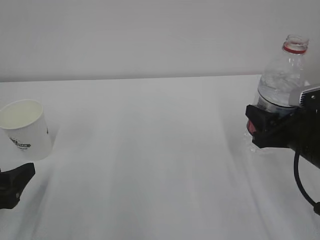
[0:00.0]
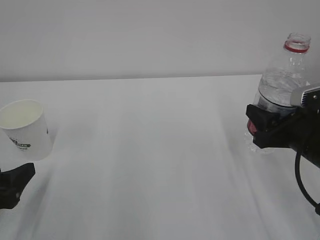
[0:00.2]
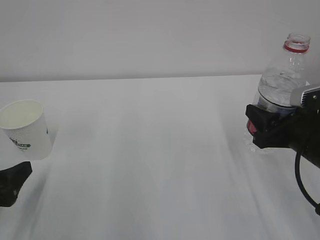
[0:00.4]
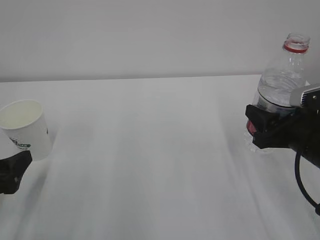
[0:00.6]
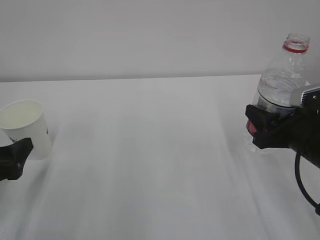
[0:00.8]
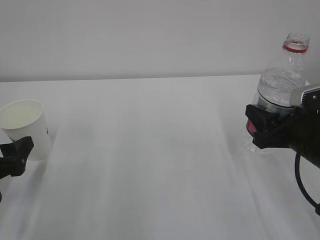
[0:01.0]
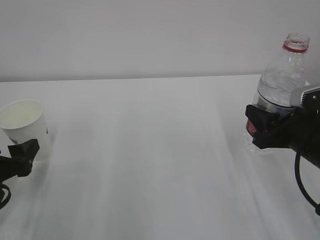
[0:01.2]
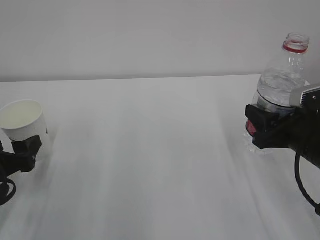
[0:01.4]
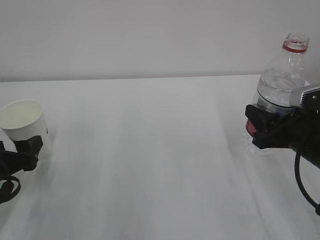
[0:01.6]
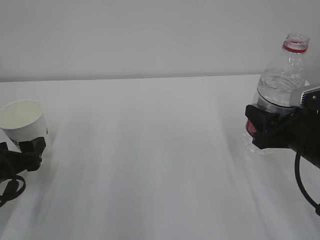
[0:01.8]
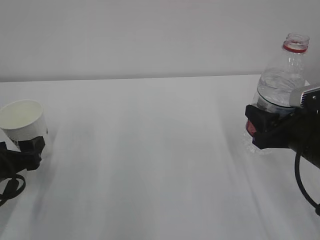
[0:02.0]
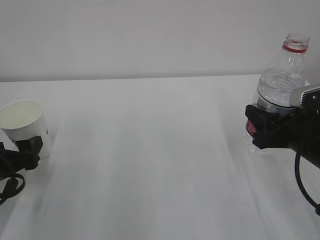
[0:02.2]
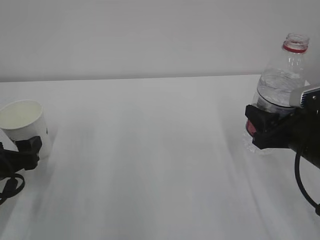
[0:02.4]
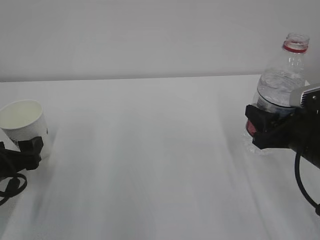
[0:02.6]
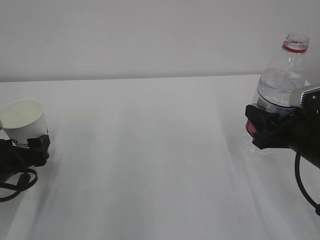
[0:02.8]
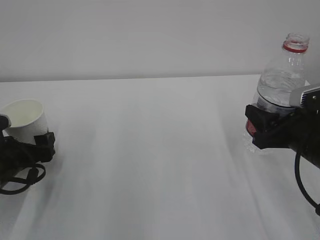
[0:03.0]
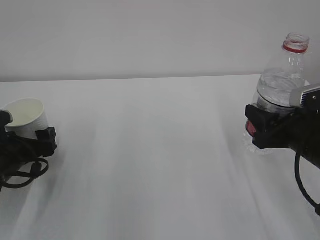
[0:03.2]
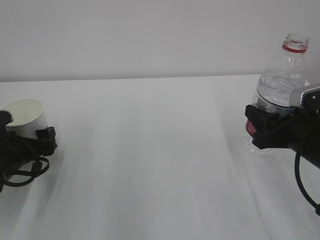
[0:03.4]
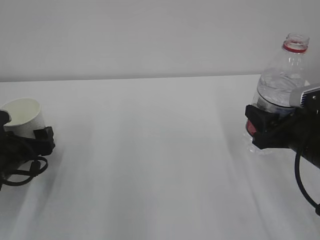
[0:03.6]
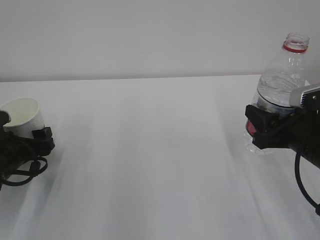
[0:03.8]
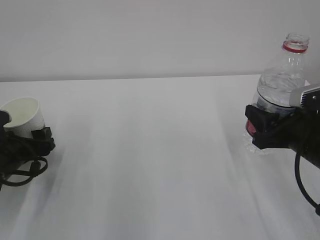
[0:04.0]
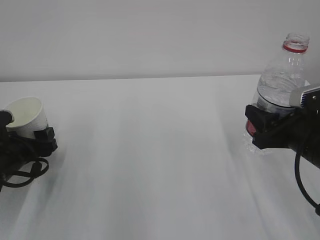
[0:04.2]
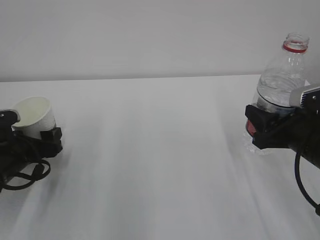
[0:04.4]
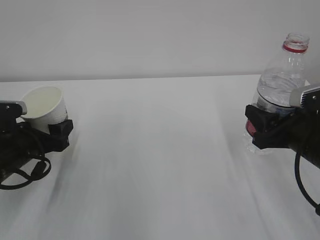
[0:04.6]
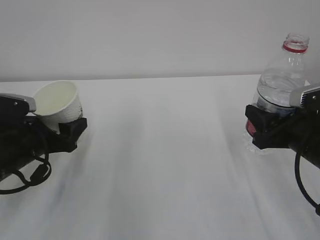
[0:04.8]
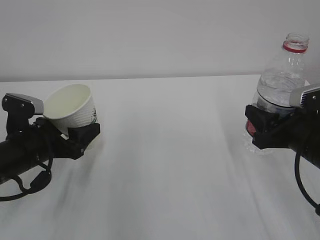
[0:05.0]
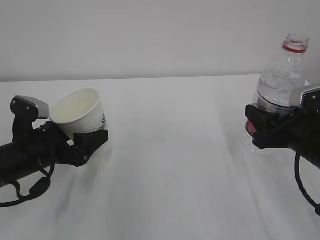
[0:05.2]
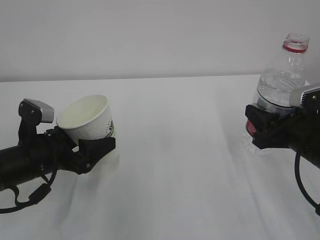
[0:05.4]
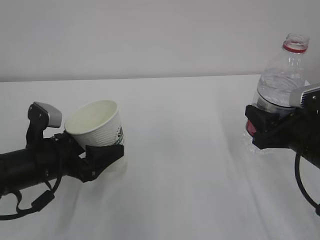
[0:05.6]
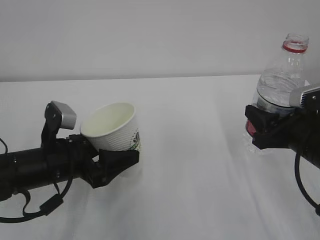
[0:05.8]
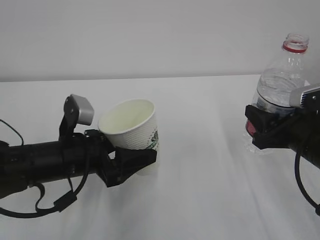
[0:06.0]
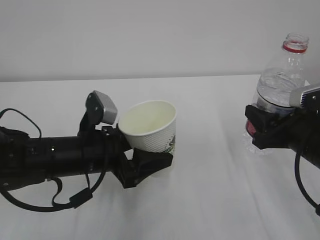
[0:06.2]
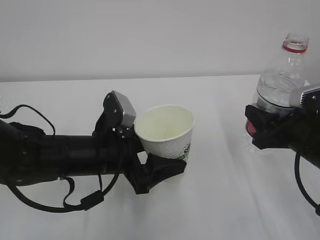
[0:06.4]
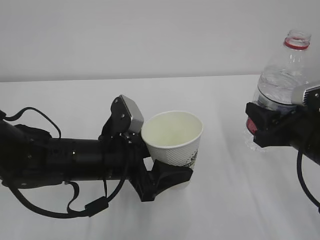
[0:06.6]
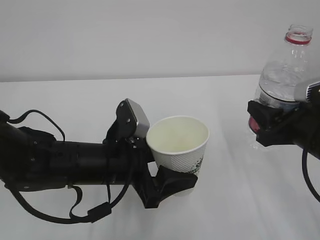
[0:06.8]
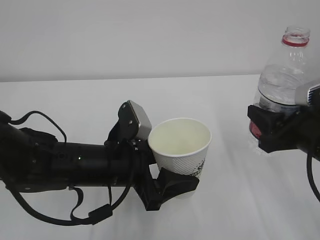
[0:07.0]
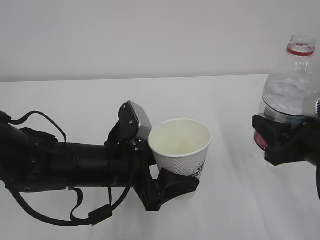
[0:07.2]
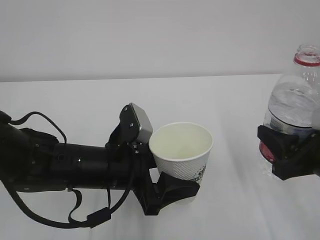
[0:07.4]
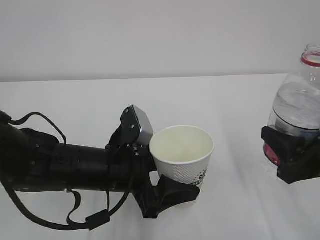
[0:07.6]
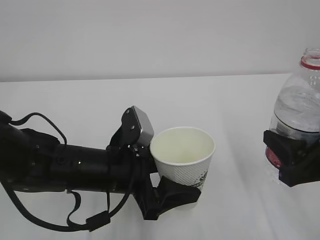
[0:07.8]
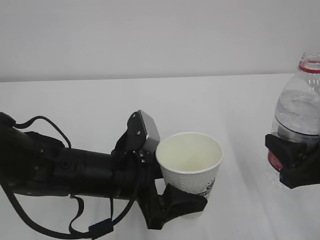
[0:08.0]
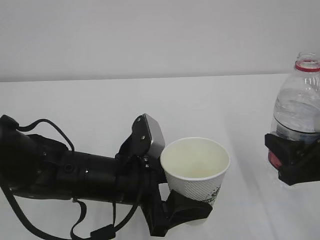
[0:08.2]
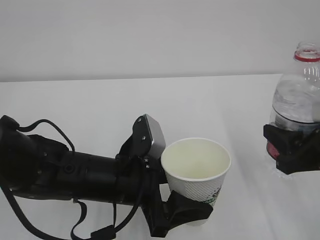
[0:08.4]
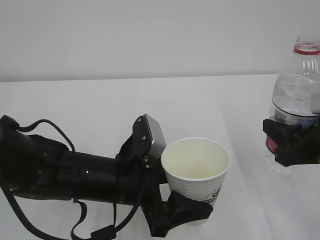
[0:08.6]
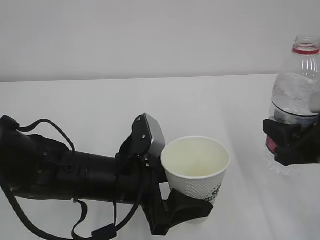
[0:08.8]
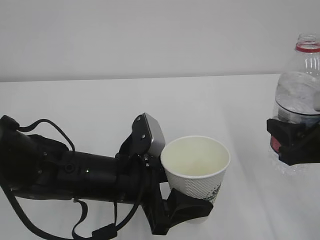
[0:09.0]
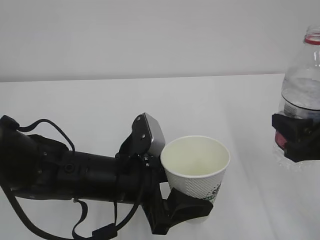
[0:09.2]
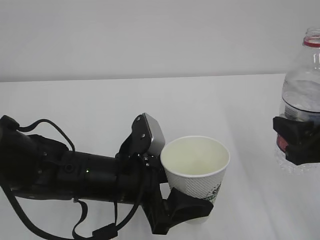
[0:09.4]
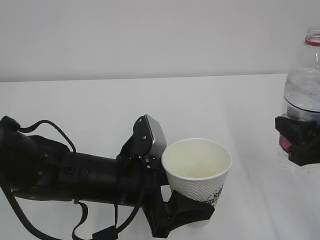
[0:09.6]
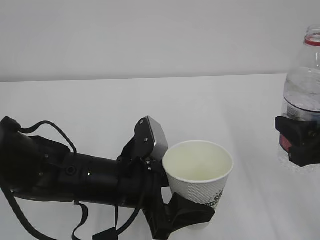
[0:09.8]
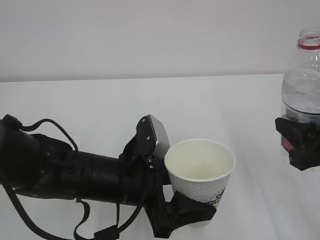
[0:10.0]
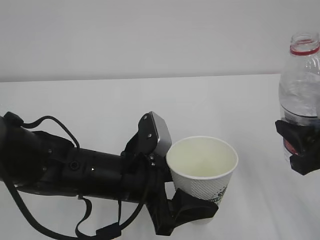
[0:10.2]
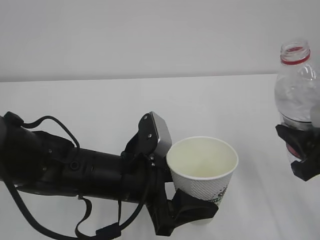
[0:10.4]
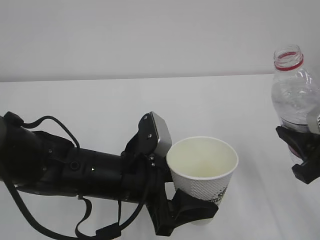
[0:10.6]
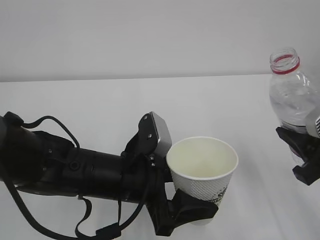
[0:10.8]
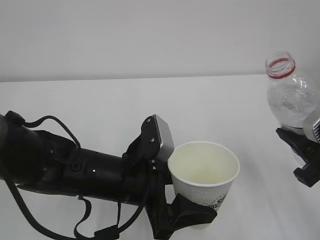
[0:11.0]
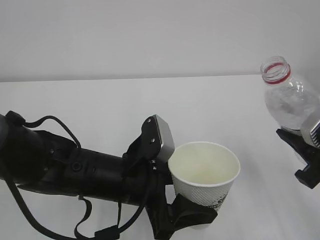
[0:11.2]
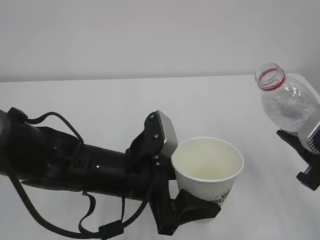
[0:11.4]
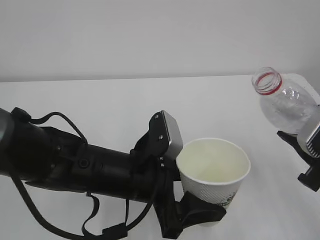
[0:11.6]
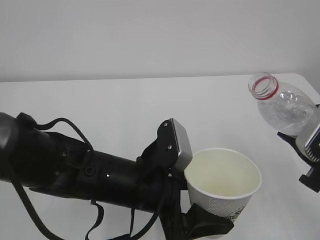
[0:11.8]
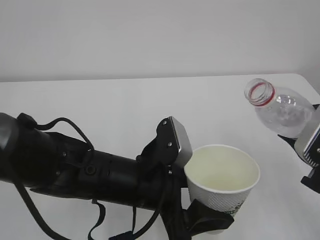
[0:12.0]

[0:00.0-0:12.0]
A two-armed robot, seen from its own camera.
0:00.0 to 0:01.6: The left gripper heads forward, covering some 5 cm, and opens.
0:01.6 to 0:03.0: The left gripper changes place by roughly 5 cm.
0:03.0 to 0:04.4: The left gripper closes up.
0:04.4 to 0:06.0: The left gripper is displaced to the right by approximately 10 cm.
0:06.0 to 0:07.6: The right gripper is displaced backward by about 5 cm. Meanwhile the left gripper moves to the right, approximately 5 cm.
0:07.6 to 0:10.4: The grippers move only a little.

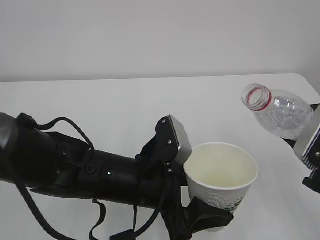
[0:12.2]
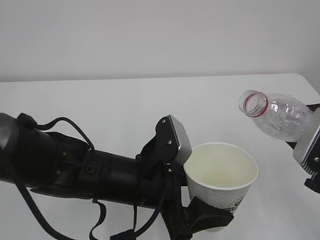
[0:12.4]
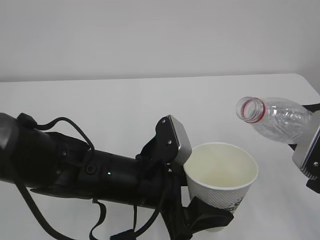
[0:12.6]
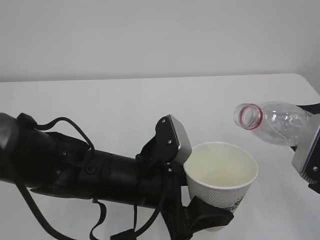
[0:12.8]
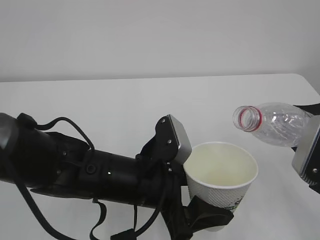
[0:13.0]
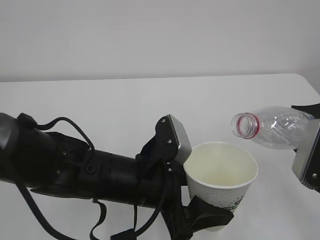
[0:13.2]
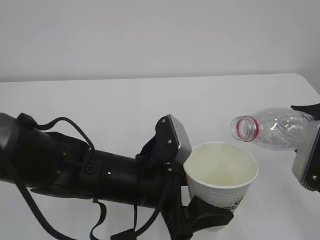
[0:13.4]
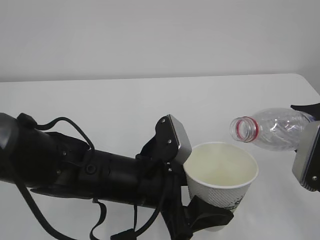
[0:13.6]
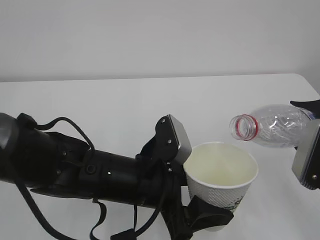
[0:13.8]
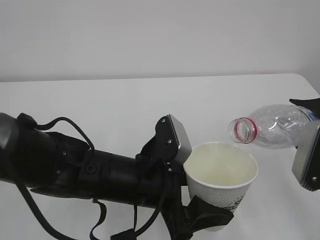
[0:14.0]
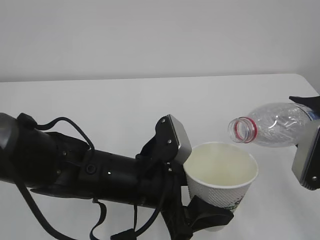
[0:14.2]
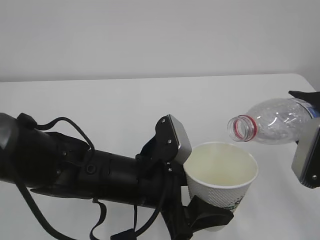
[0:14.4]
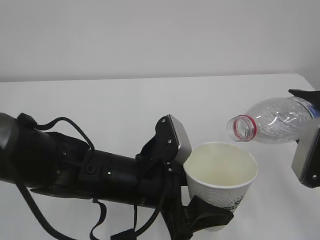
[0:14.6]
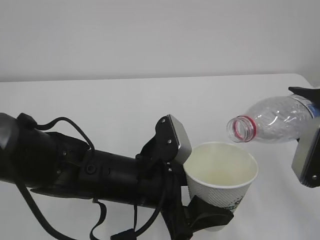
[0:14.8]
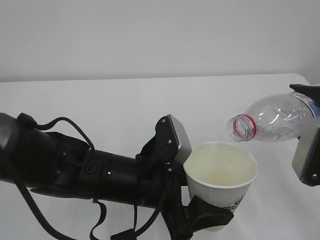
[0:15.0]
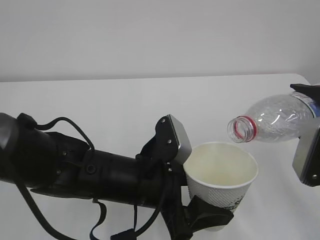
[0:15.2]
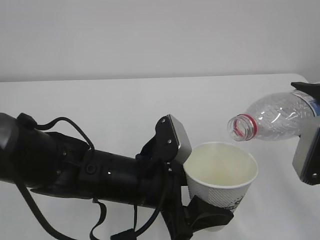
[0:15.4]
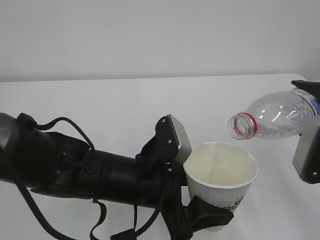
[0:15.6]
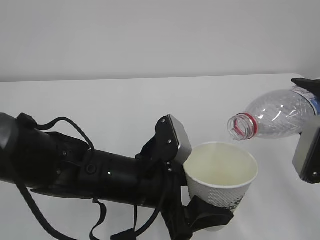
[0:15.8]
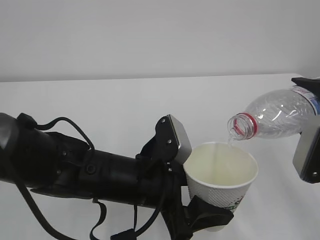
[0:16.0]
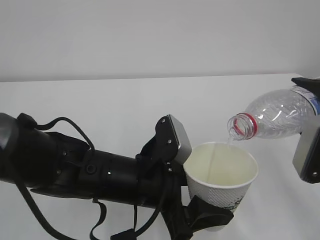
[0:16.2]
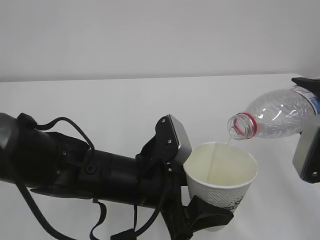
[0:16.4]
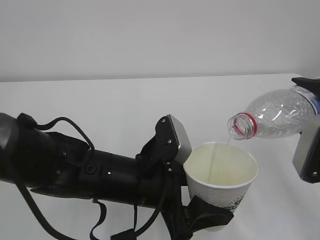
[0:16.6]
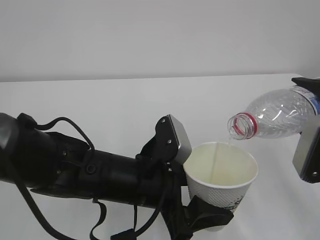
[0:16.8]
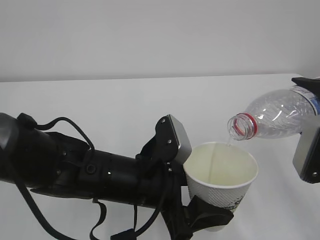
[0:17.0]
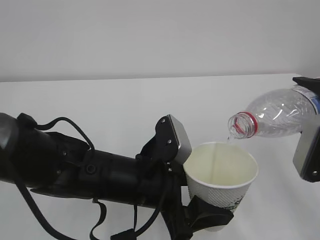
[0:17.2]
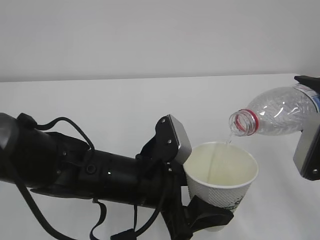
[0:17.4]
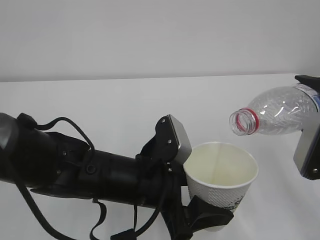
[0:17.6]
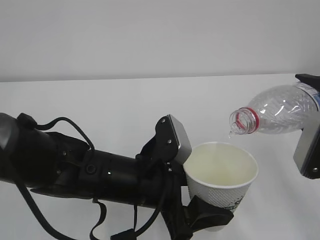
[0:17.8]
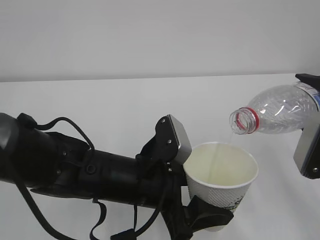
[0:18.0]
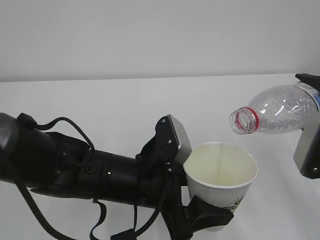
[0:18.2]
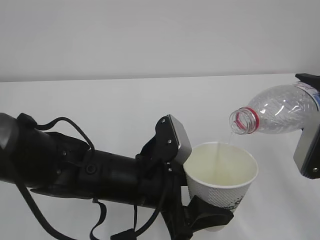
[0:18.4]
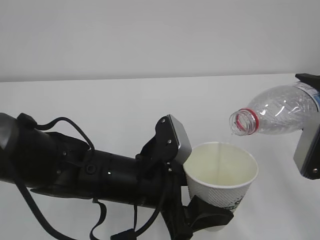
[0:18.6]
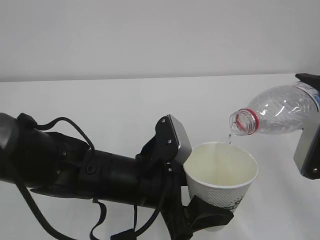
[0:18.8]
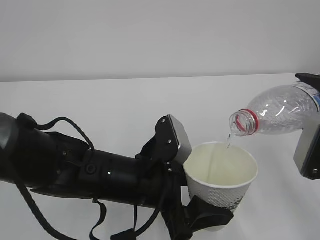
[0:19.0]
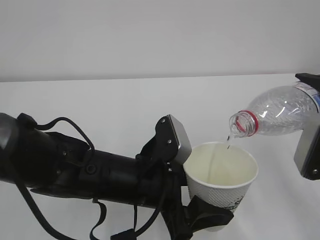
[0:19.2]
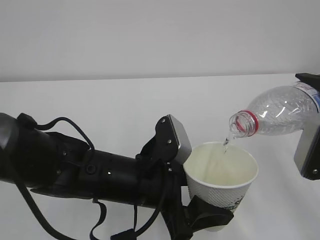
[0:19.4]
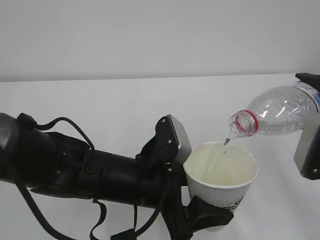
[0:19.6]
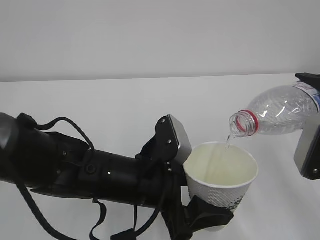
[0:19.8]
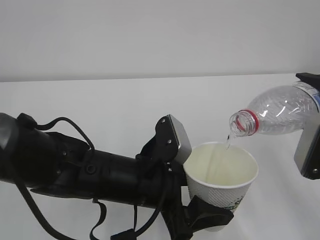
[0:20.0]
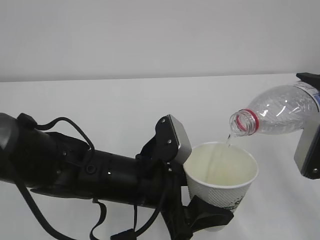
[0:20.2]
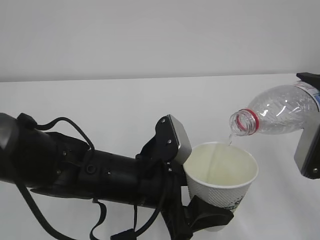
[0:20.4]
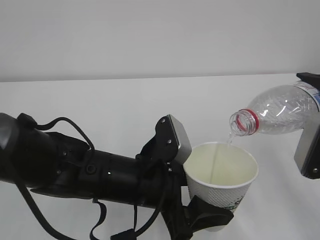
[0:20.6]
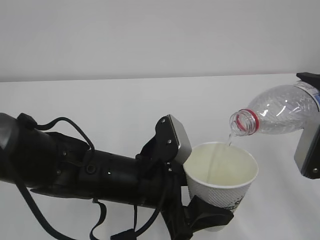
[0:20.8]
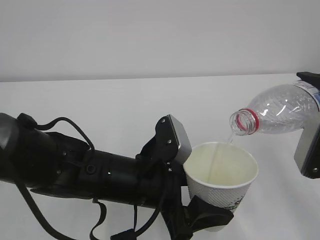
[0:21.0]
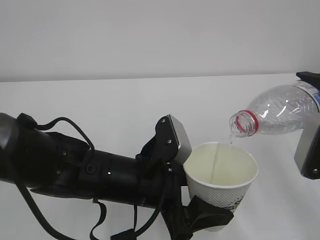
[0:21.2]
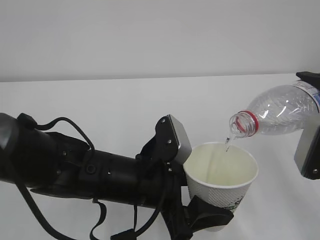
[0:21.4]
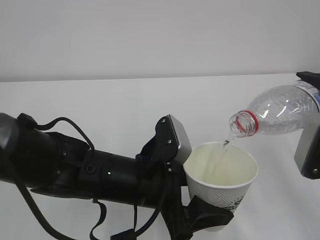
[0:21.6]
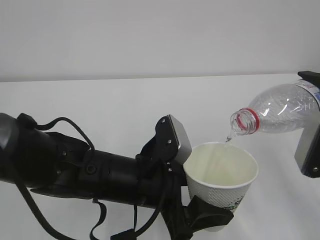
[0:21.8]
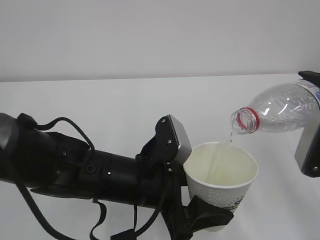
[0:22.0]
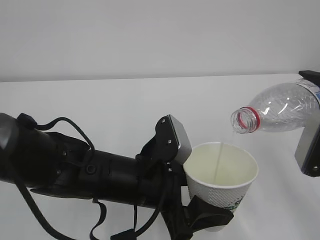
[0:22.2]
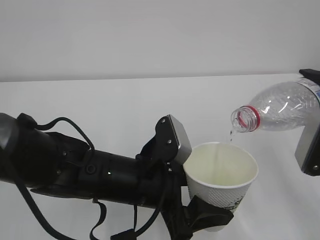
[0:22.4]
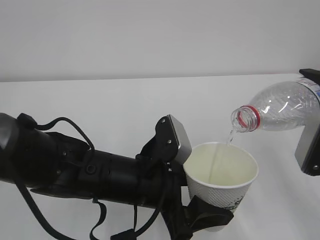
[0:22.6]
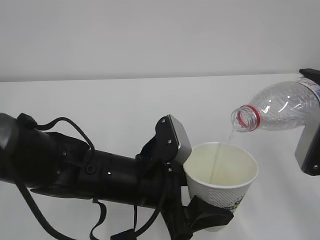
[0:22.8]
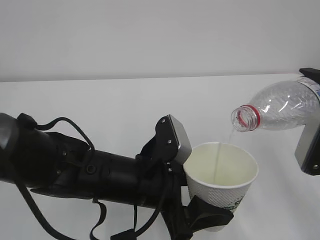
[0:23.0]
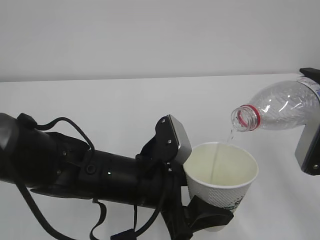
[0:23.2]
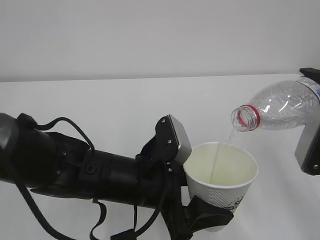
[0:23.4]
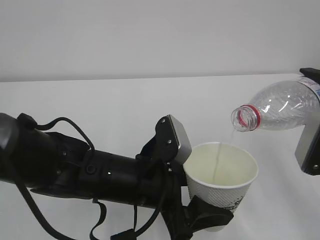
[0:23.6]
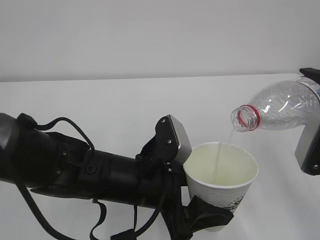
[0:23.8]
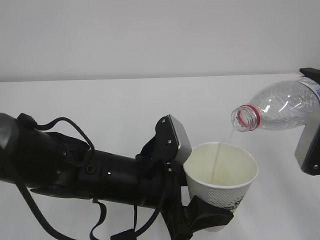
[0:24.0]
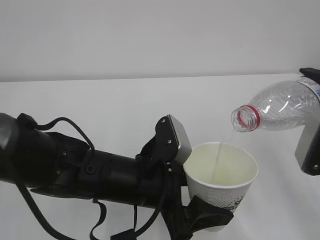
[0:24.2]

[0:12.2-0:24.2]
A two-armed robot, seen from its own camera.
0:12.2 to 0:13.8: There are only small adjustments of the grippers.
0:13.8 to 0:15.2: The grippers make only small movements.
0:15.2 to 0:18.2: Both grippers stay put.
0:18.2 to 0:24.2: Both grippers stay put.
